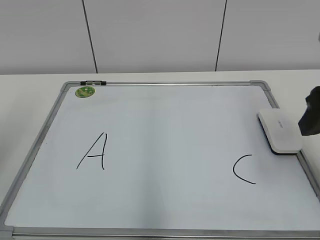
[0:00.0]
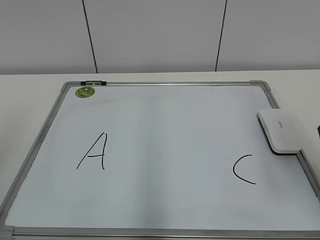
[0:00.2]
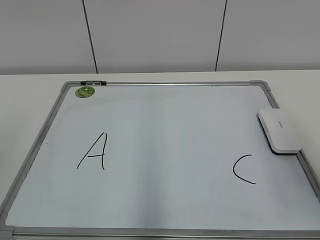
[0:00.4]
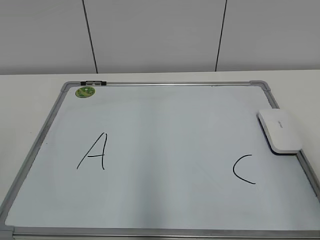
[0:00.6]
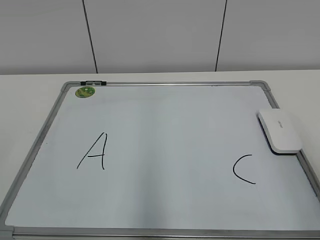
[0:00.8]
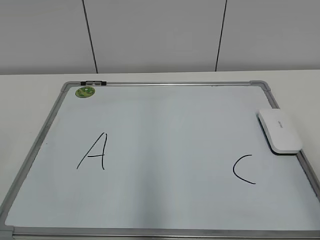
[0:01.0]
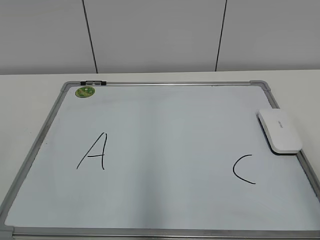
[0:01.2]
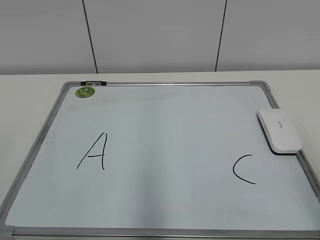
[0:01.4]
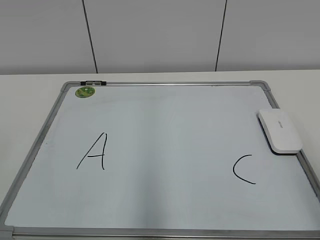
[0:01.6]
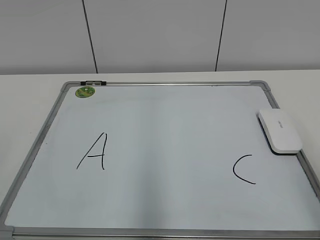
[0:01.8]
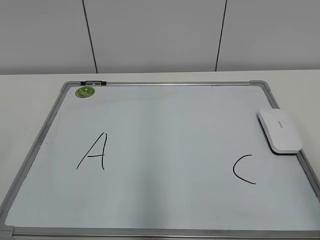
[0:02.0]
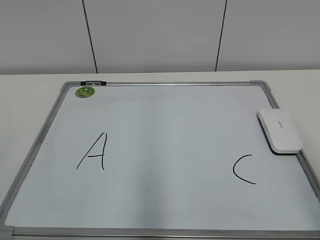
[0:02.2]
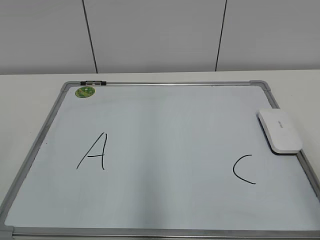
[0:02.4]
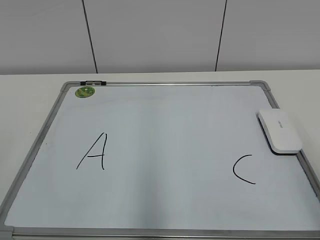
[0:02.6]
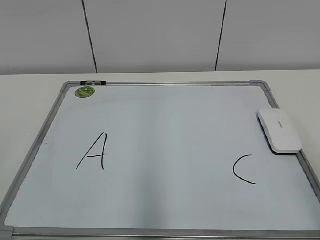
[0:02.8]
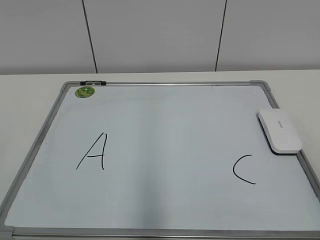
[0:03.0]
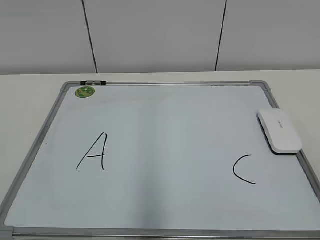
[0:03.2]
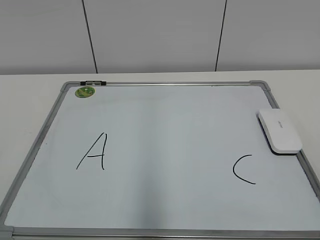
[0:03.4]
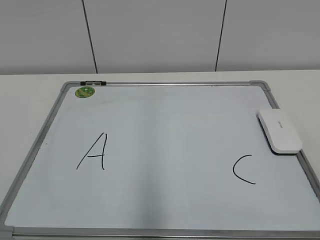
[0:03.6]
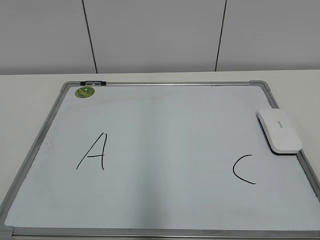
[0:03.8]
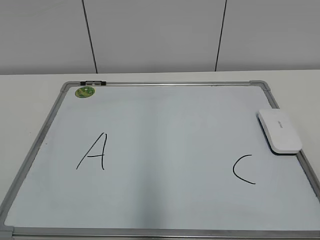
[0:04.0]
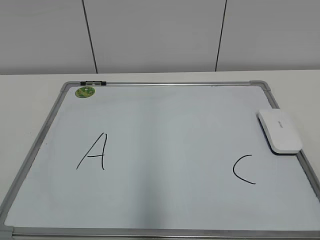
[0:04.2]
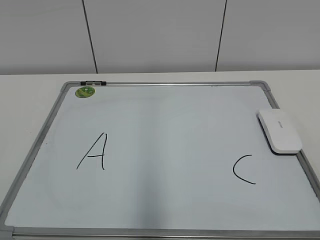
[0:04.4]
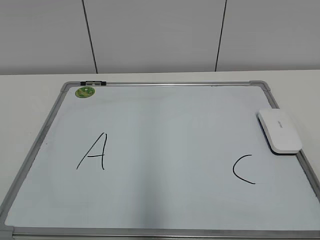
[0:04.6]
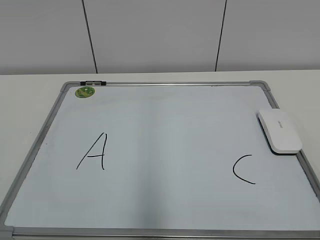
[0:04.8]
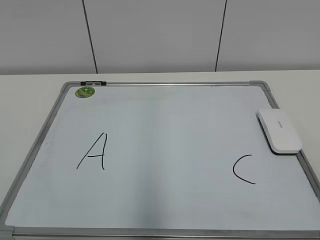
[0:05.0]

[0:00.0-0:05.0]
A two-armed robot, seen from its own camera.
Task of the whole recording: pick up the eraser on the blackboard and erase the letter "B".
0:00.0 to 0:01.6: The right gripper is displaced backward by roughly 15 cm.
